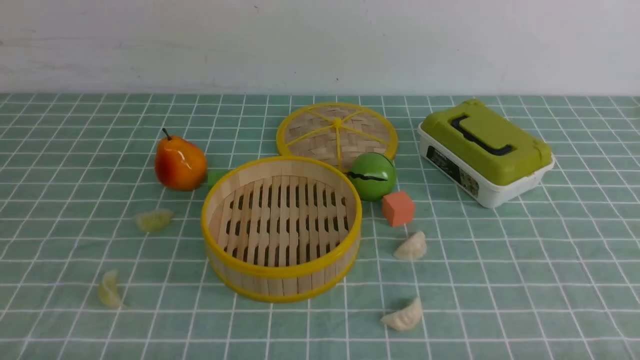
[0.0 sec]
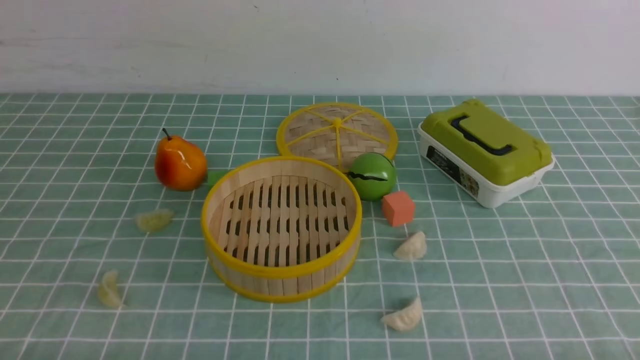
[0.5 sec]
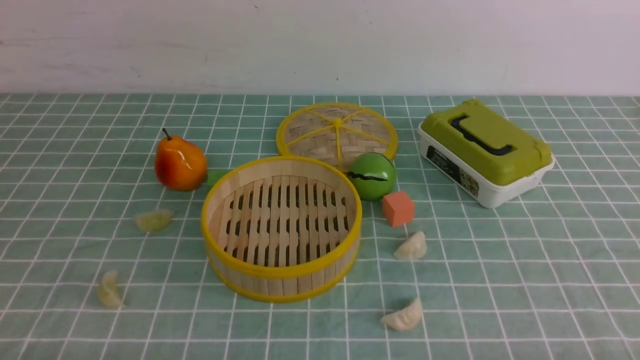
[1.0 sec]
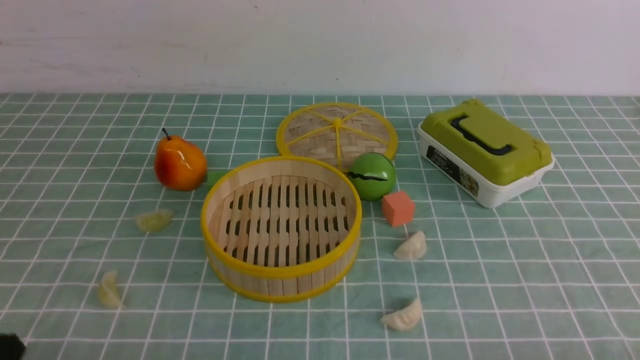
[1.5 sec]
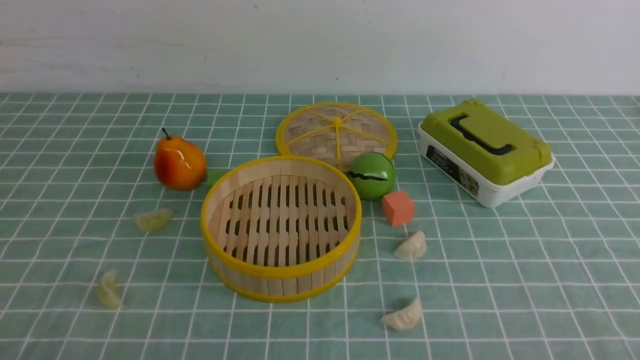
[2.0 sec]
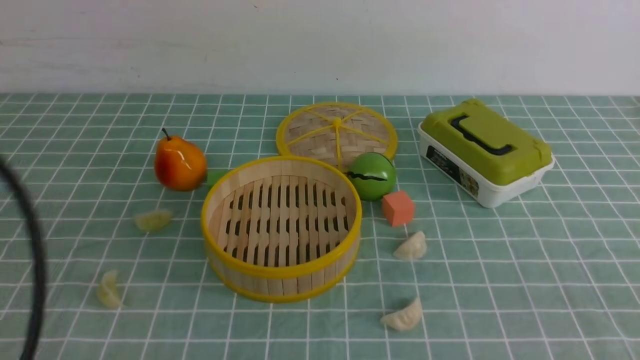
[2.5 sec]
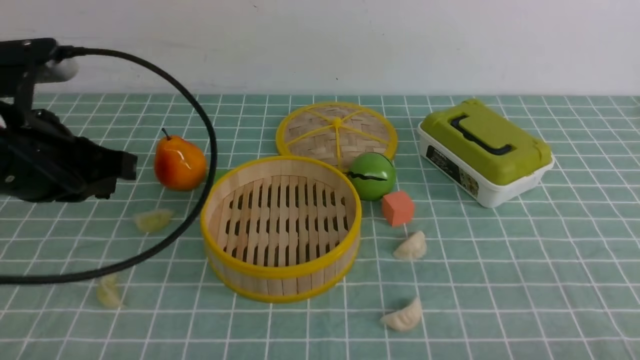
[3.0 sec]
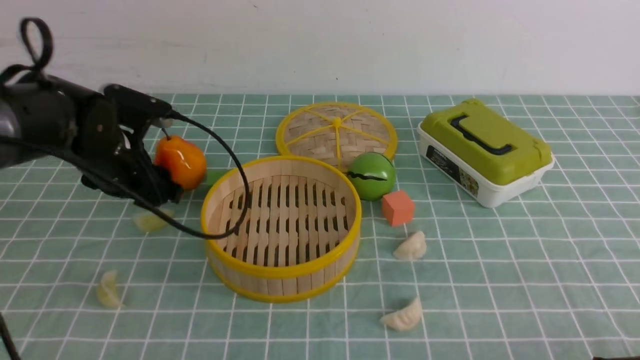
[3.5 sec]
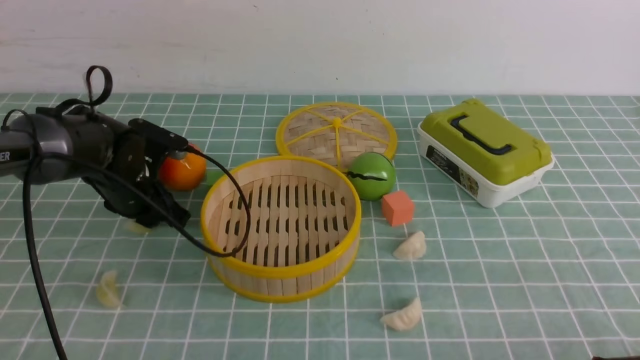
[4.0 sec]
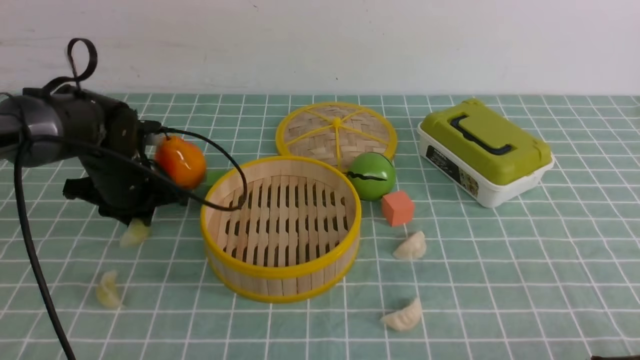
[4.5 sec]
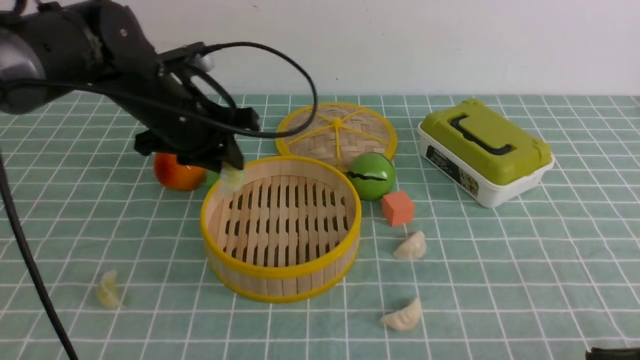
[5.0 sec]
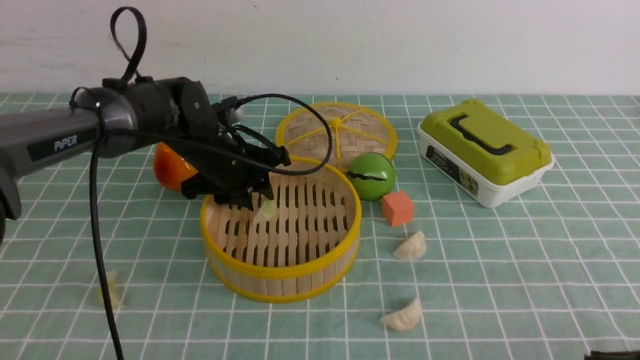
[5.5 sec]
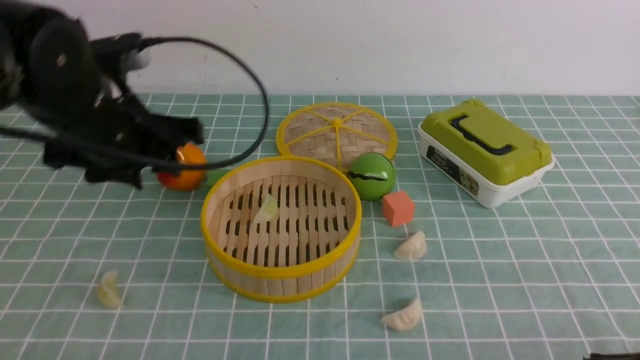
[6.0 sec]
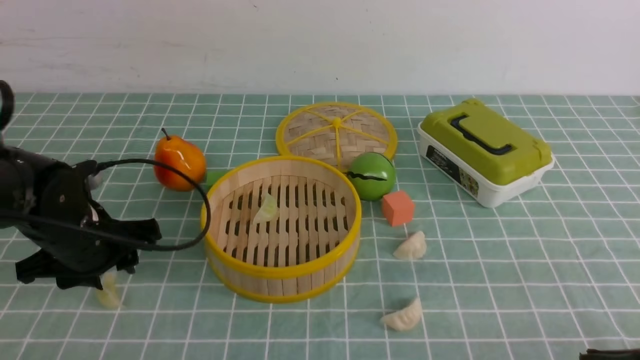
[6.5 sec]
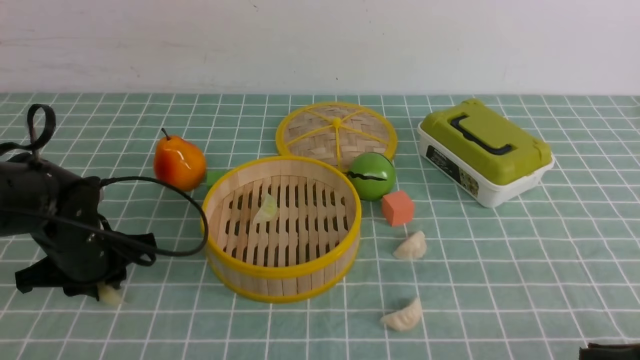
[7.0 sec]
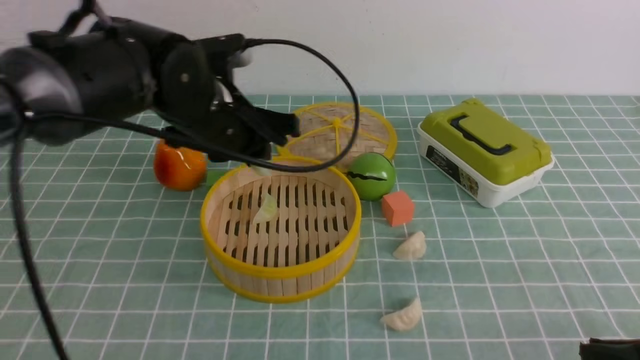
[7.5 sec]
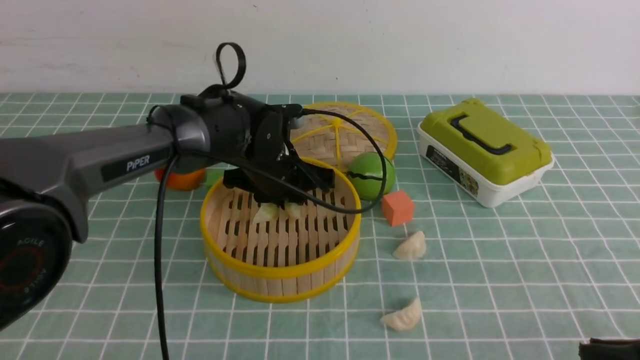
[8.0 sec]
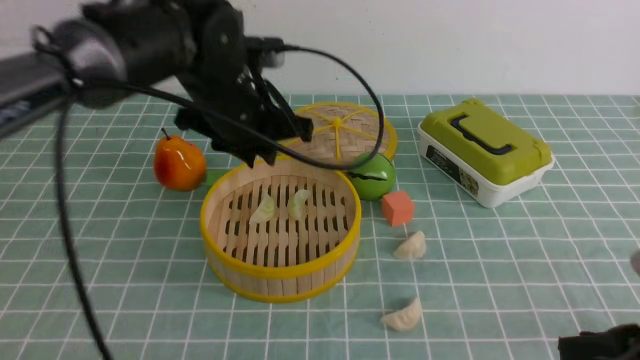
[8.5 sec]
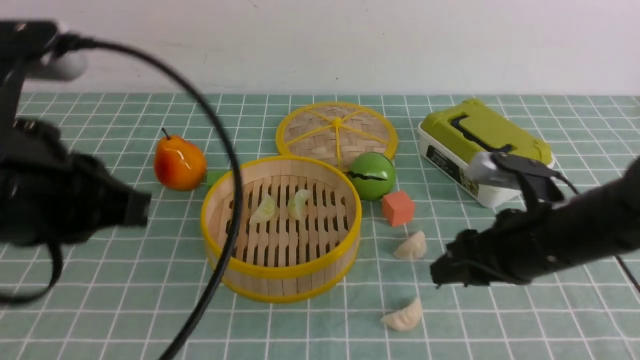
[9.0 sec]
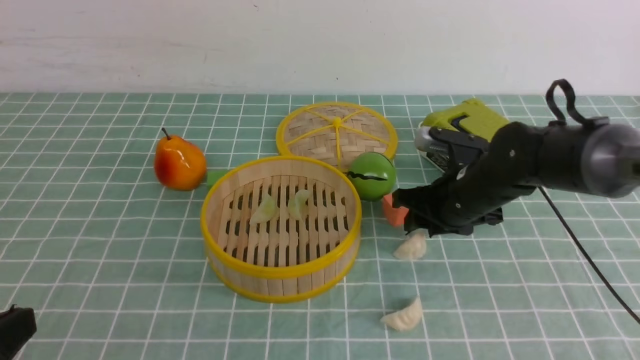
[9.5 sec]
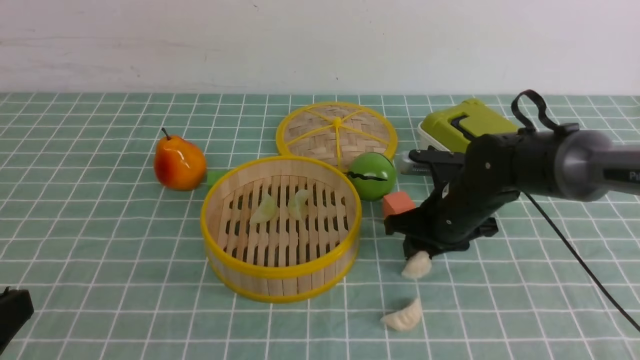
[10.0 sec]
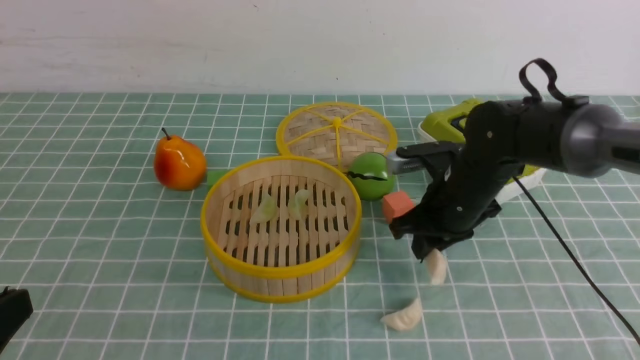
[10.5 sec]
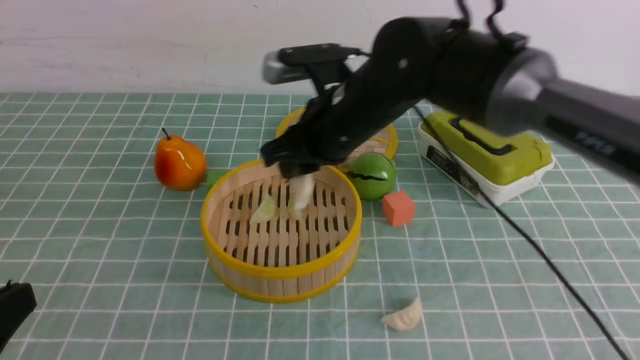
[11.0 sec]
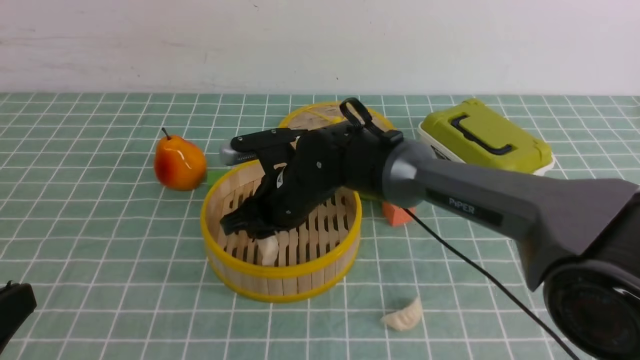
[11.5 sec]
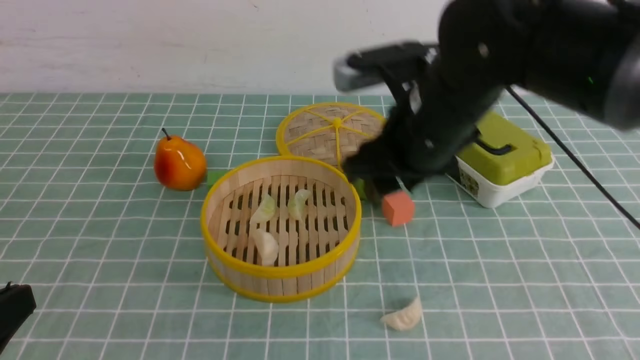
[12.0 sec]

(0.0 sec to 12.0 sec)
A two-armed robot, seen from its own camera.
Task of the whole recording: put the dumplings into the steamer on the table with the blue tablecloth.
Step, 0.0 sec - 4.5 sec: use the left arm to grab a dumpling.
Step, 5.0 sec - 5.5 sec: use the left arm to put the dumpling into the steamer.
Step, 6.0 sec - 7.0 sec: use the left arm to grab a dumpling.
Step, 7.5 sec - 8.5 sec: use the left arm to put the dumpling into the steamer.
Step, 9.0 sec - 10.5 sec: use the right arm to grab a dumpling.
Step, 11.0 sec - 11.5 sec: use the right arm to put the dumpling into the steamer.
2.0 sec - 4.0 sec: The left gripper is displaced forward by about 40 cm, and opens up.
4.0 sec - 6.0 sec: The left gripper swings up and down, some 10 cm each way, with 2 reversals.
6.0 sec - 8.0 sec: The left gripper is displaced to the right, forward and downward by roughly 20 cm.
8.0 sec - 10.0 sec: The right gripper travels forward and to the left by roughly 30 cm; the left gripper goes roughly 40 cm backward and to the left, and closes up.
10.0 sec - 12.0 sec: The right gripper shifts roughly 15 cm upward, to the left and backward, and opens up.

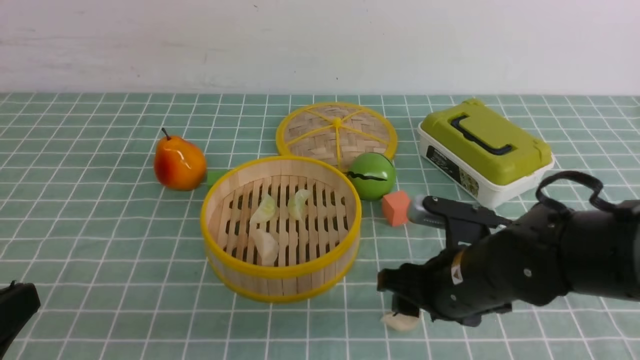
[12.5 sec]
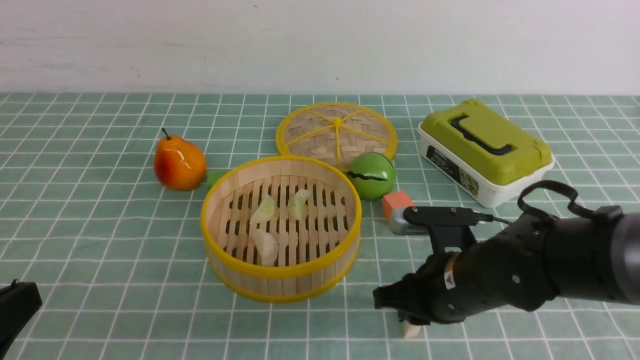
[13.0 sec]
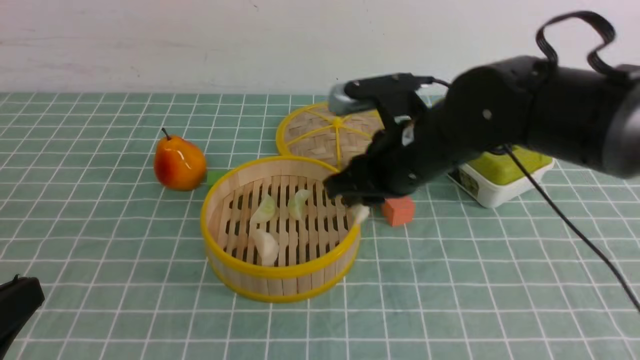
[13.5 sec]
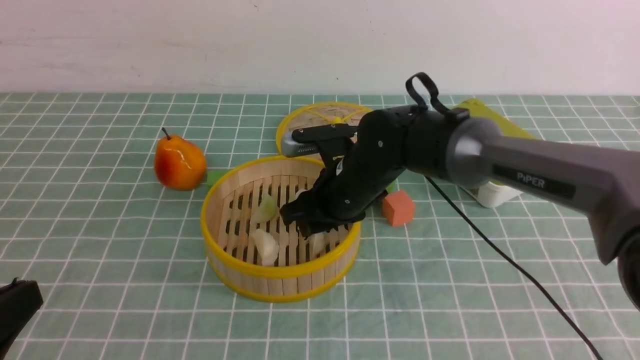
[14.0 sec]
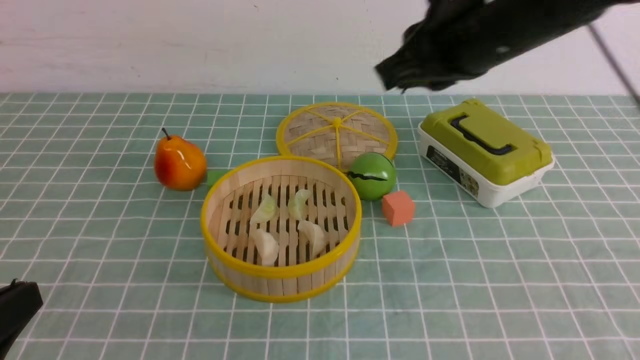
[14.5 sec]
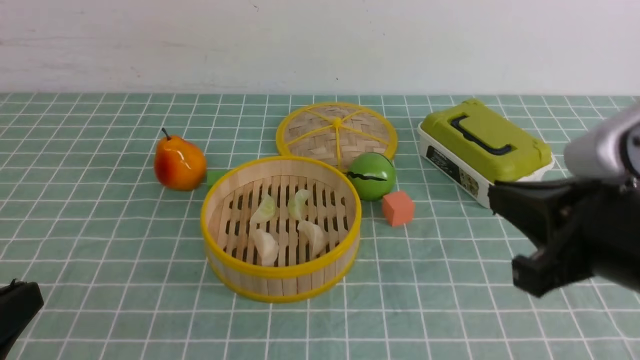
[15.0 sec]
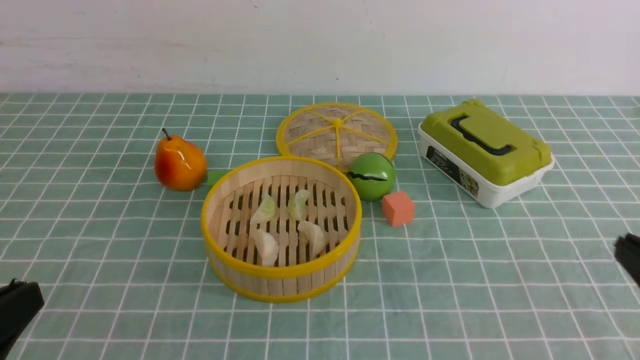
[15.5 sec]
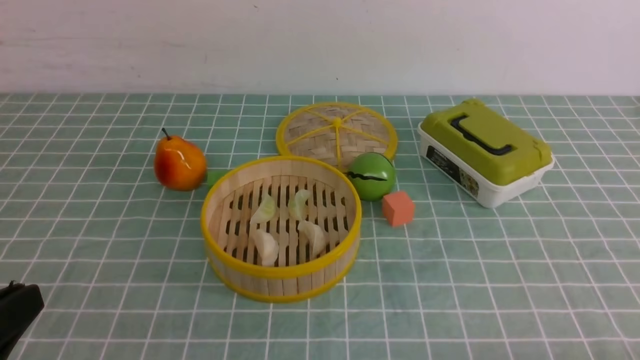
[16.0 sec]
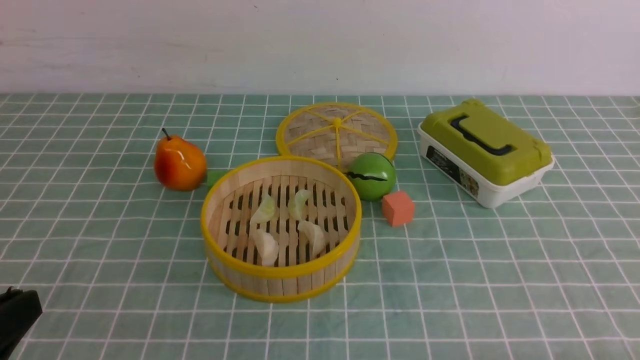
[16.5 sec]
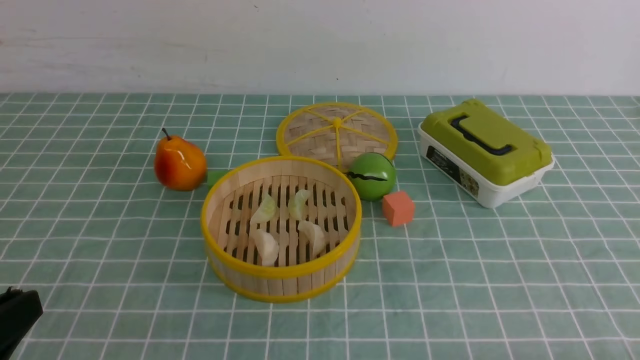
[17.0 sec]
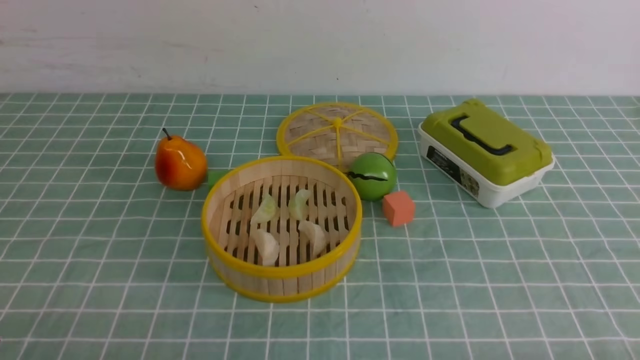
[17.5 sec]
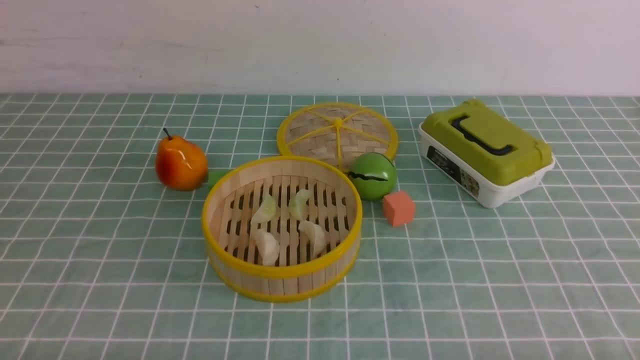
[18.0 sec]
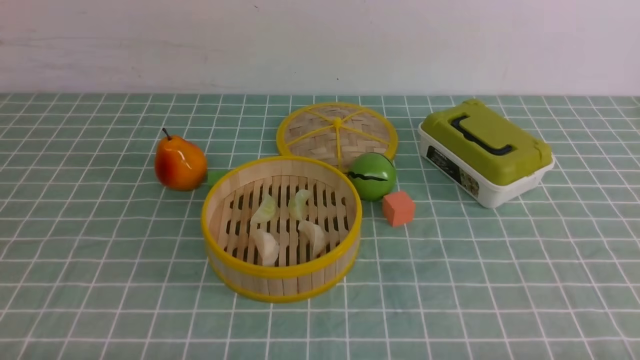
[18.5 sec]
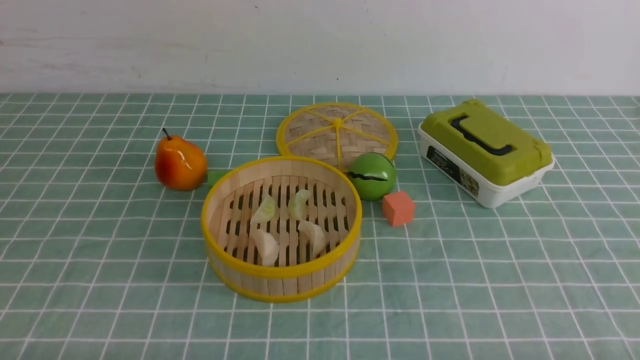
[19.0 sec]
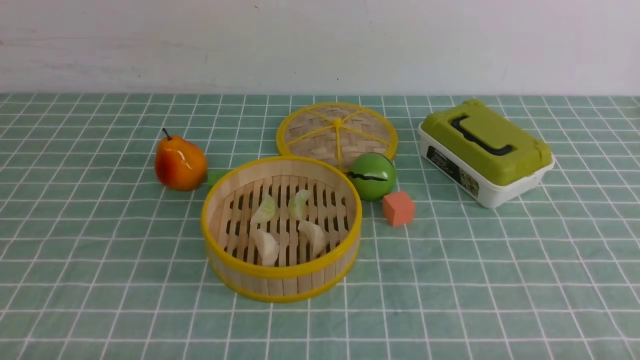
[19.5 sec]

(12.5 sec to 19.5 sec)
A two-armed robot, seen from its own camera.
Task of the whole recording: put the dumplings into the steamer on the table with the blue tablecloth.
Step, 12.5 sec - 13.5 sec: use the right arm to grab a dumpling.
Step, 14.0 sec - 14.5 sec: use the right arm to put the dumpling into the steamer.
12.5 sec - 14.5 sec: The right gripper swings up and down, roughly 25 cm each way, with 2 reversals, and closes up.
14.5 sec - 16.0 sec: The right gripper goes approximately 35 cm backward, downward and to the right.
16.0 sec - 17.5 sec: The left gripper moves roughly 5 cm.
